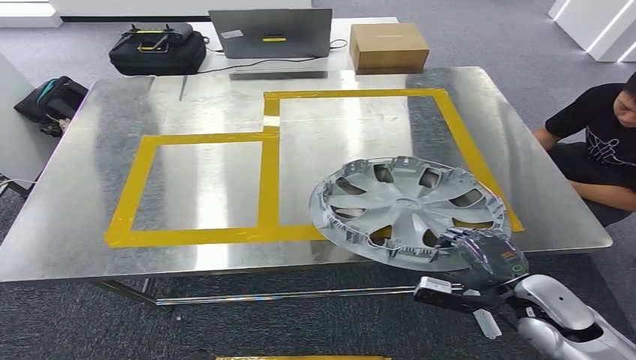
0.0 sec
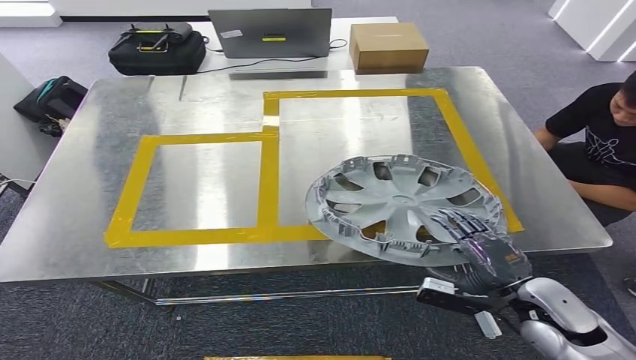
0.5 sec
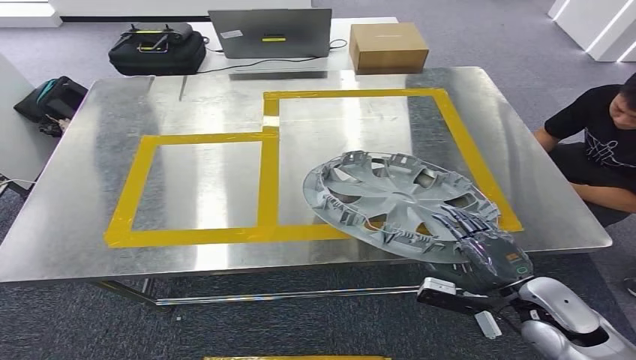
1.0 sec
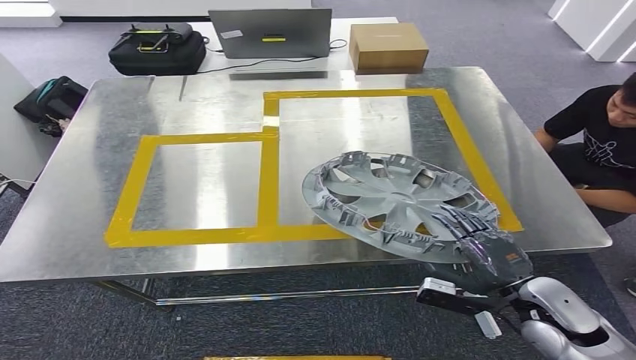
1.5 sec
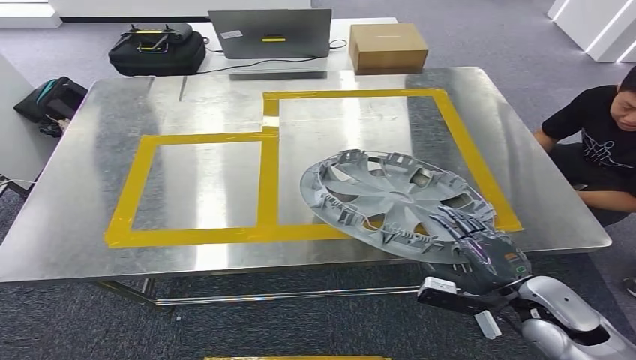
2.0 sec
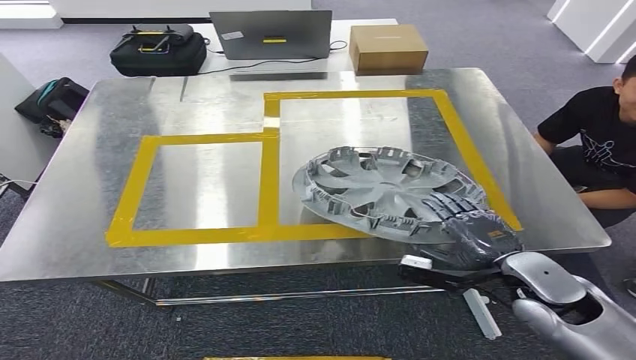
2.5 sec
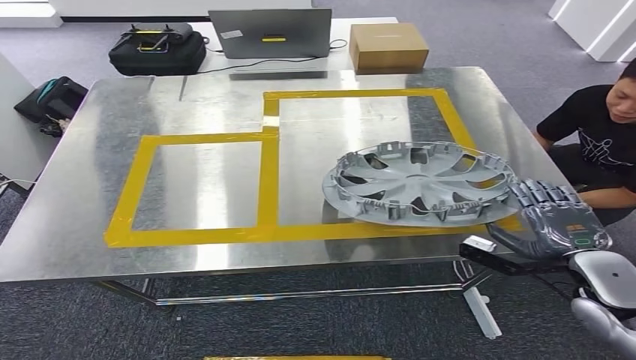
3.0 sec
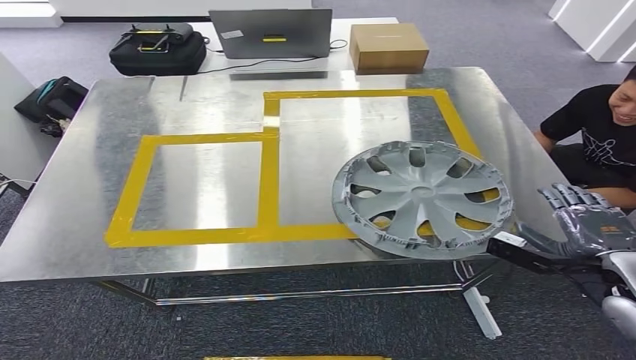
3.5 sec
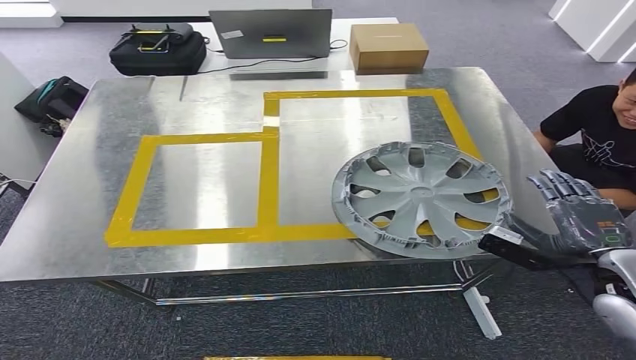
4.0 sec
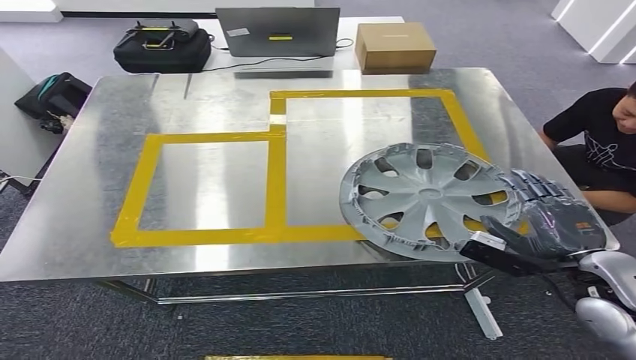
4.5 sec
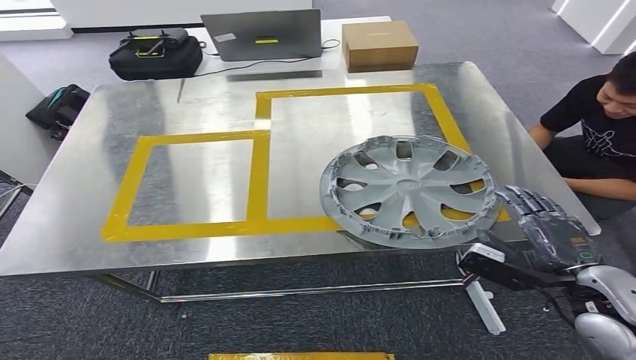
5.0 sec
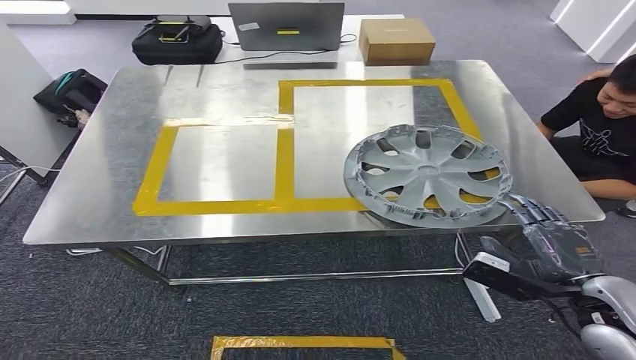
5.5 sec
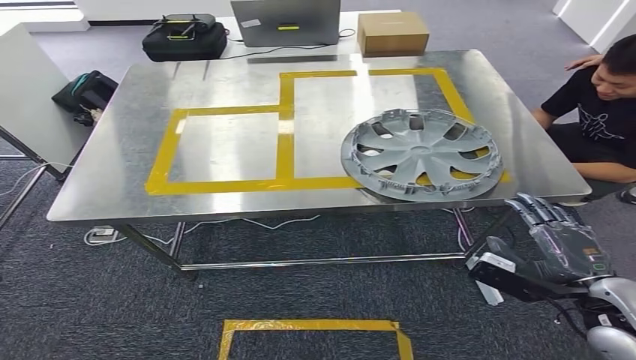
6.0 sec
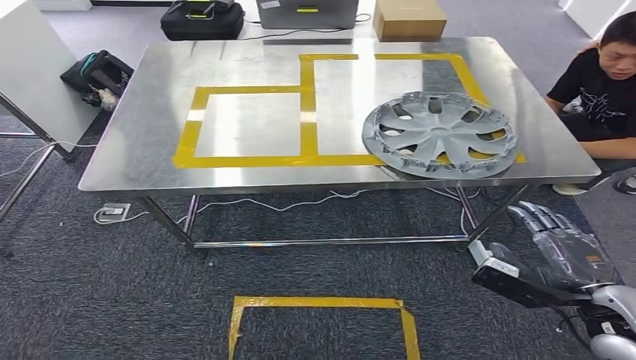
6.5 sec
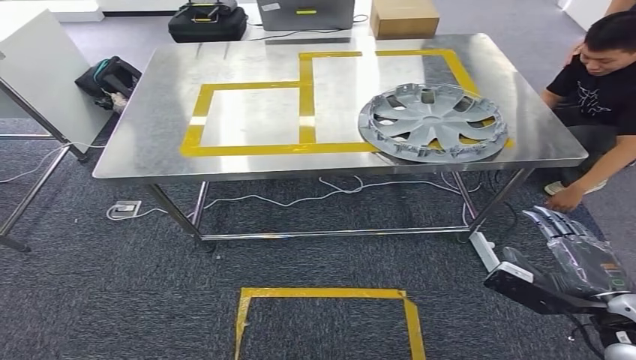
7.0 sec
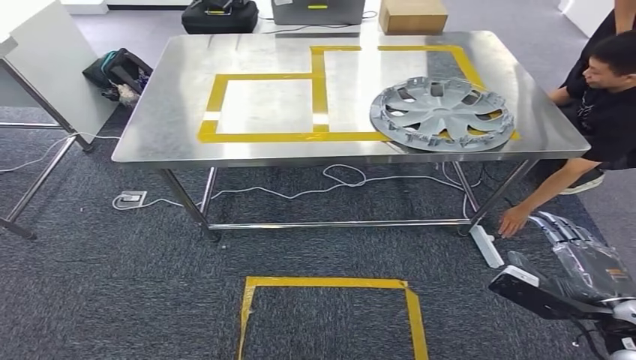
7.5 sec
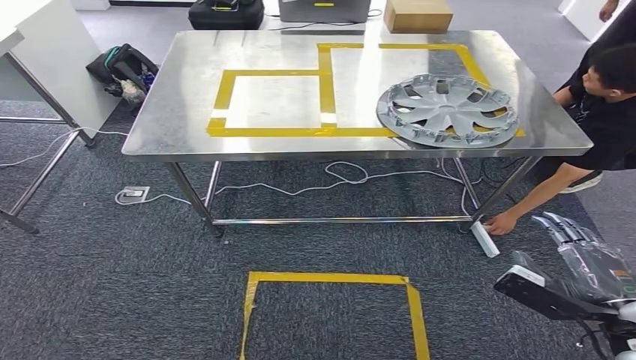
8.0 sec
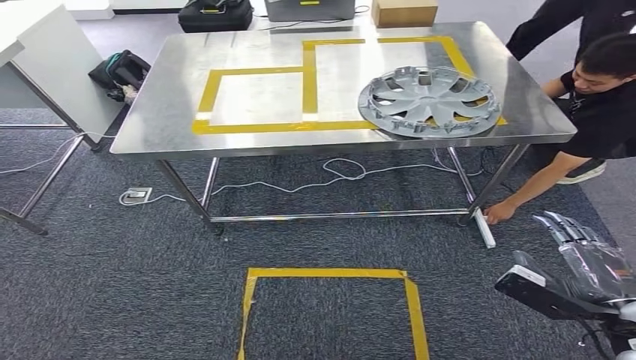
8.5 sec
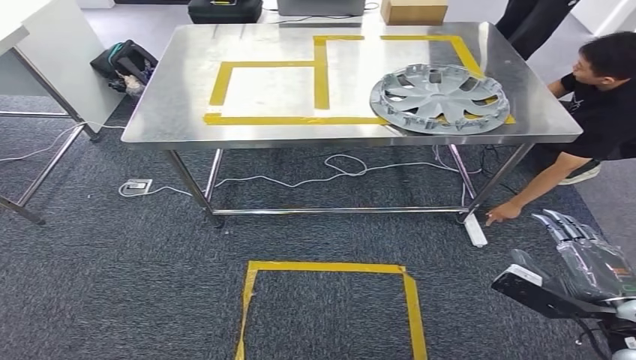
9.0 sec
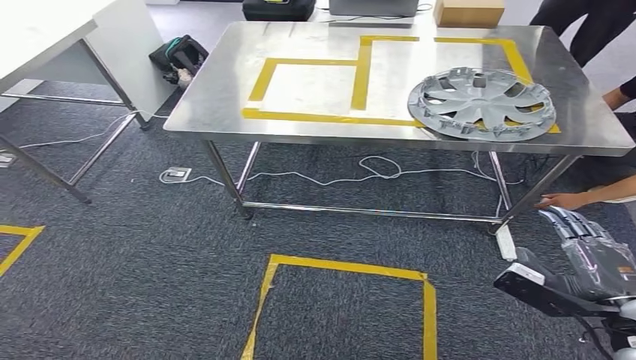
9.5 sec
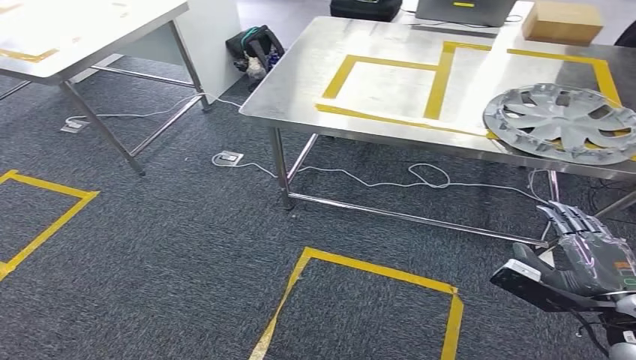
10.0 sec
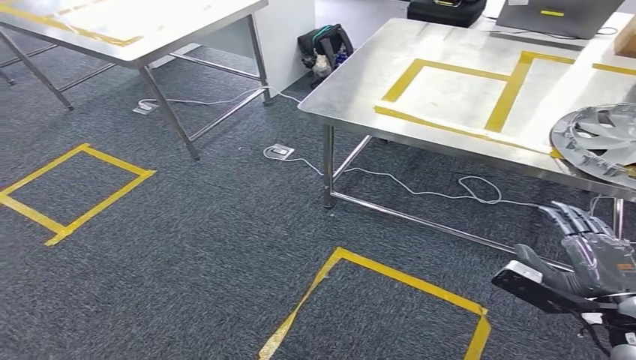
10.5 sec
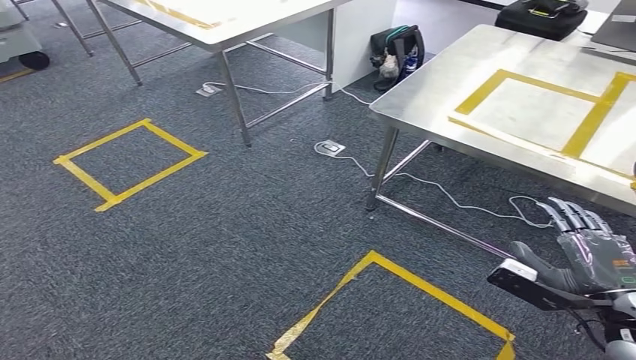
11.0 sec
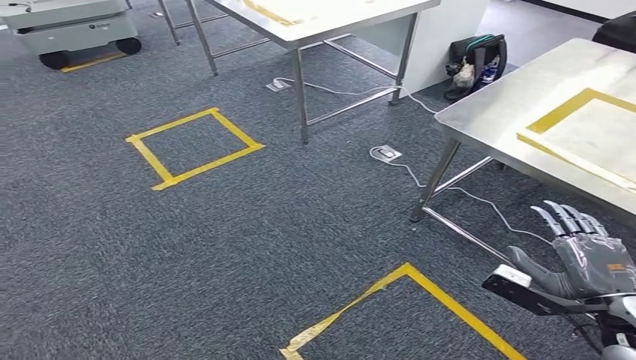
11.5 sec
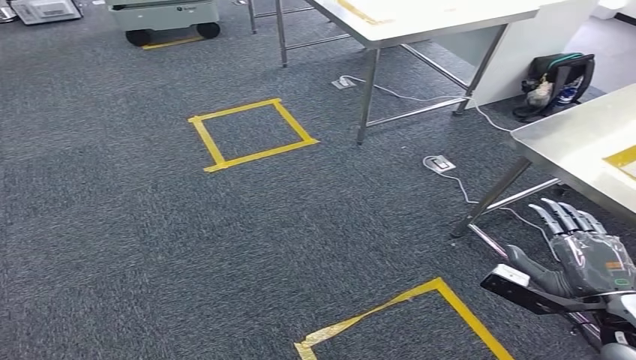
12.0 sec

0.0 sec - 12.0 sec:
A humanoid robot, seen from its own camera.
Step, 0.0 sec - 5.0 sec: Insert the small component into the corresponding slot on the workbench.
0.0 sec - 2.0 sec: There are only small adjustments of the hands.
2.0 sec - 4.0 sec: The right hand heads upward and to the right, covering approximately 10 cm.

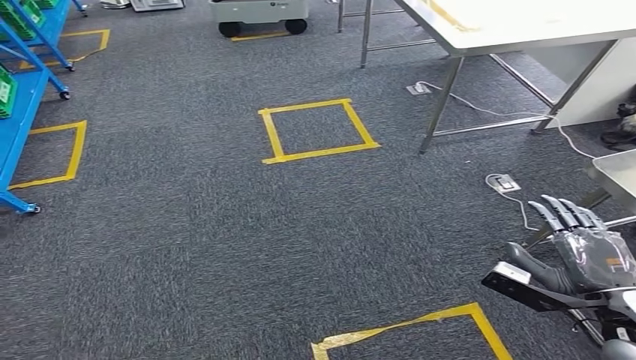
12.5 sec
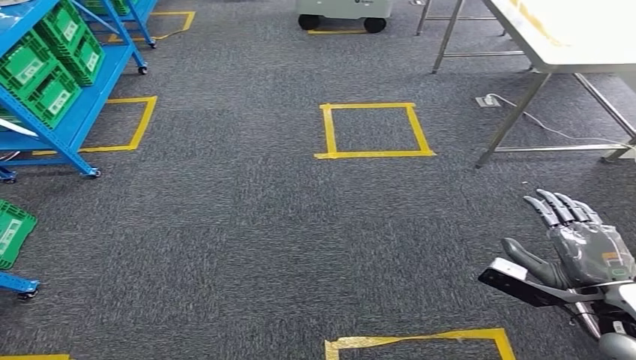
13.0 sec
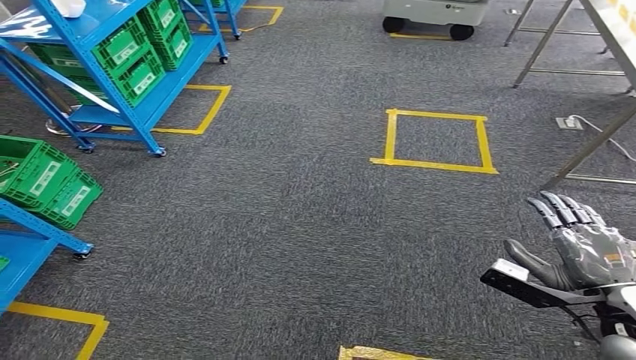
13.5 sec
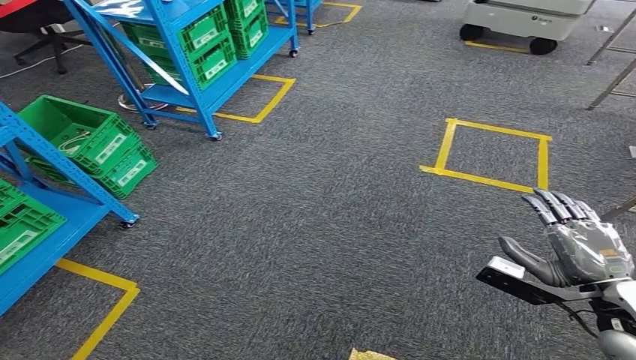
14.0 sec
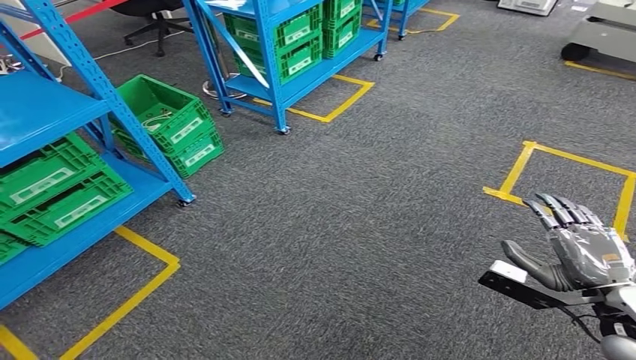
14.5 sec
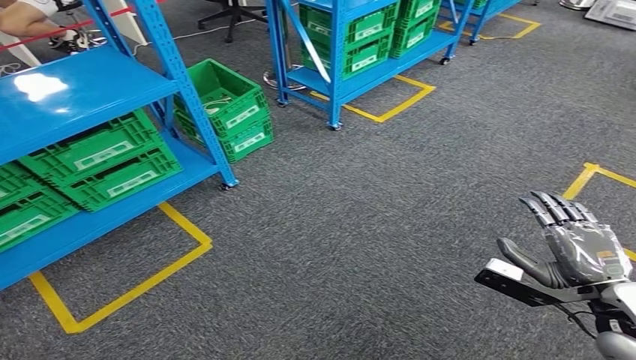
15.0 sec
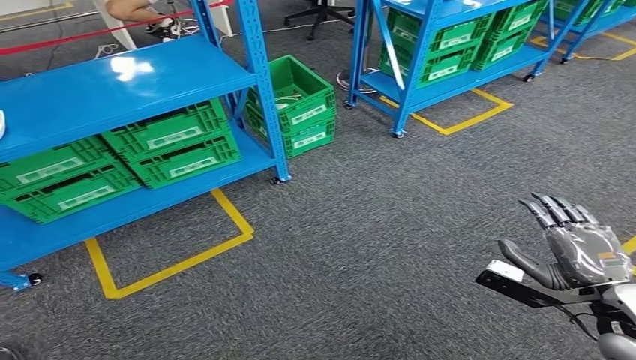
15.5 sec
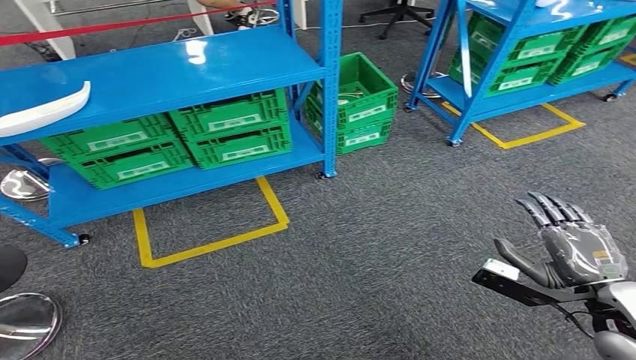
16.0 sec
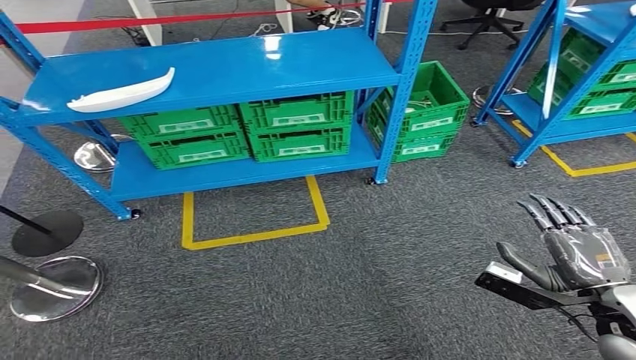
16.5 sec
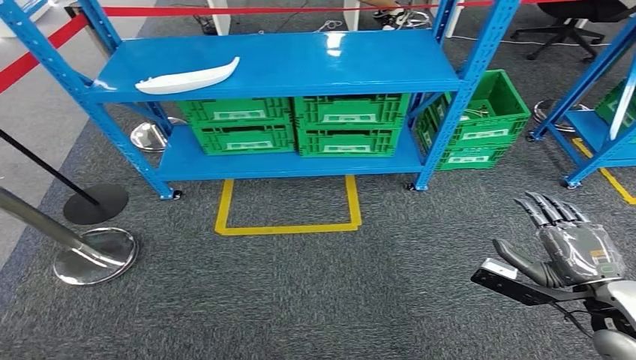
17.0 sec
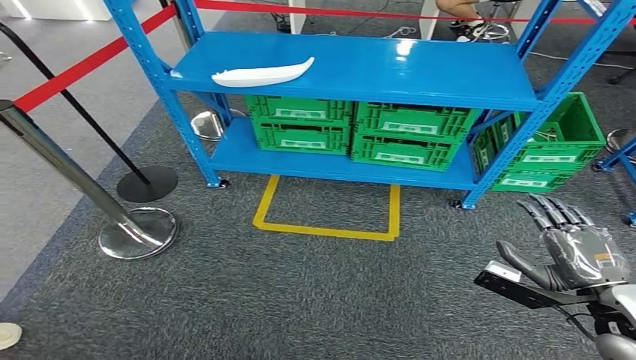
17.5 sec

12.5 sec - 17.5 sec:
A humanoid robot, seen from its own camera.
Step, 12.5 sec - 17.5 sec: Move to the initial position of the workbench.
